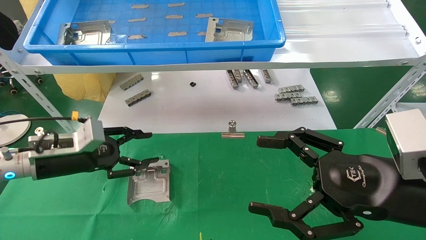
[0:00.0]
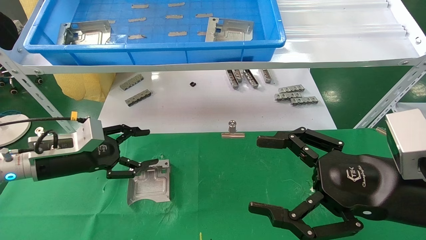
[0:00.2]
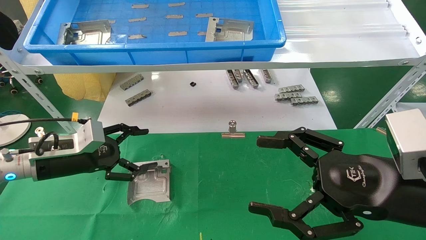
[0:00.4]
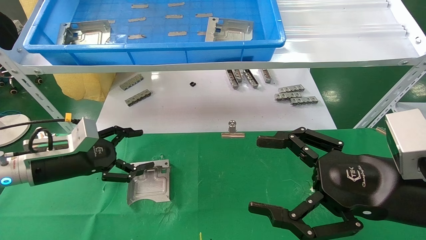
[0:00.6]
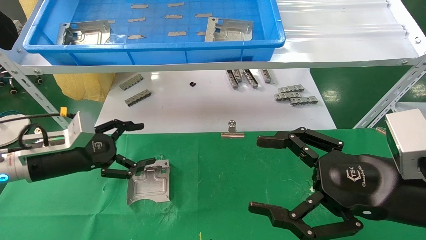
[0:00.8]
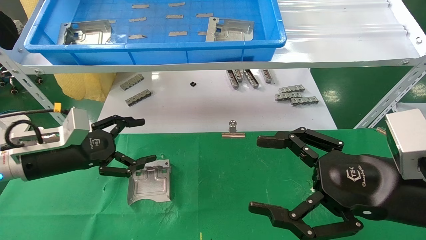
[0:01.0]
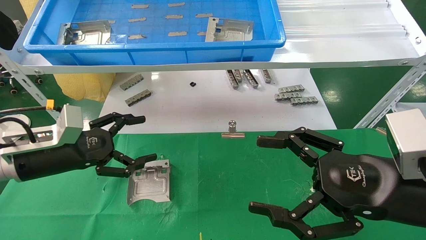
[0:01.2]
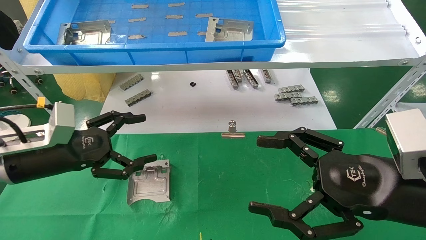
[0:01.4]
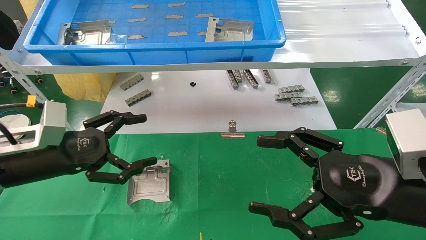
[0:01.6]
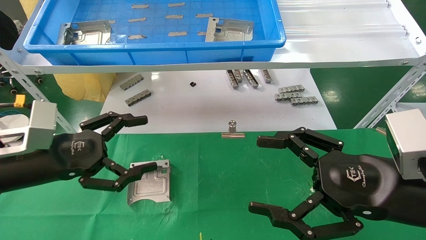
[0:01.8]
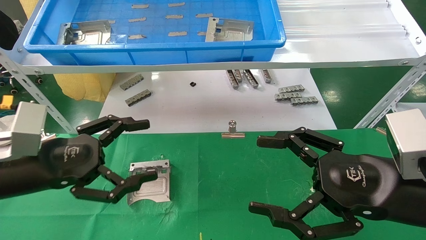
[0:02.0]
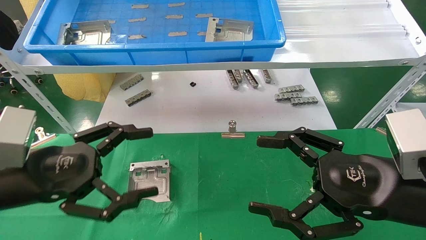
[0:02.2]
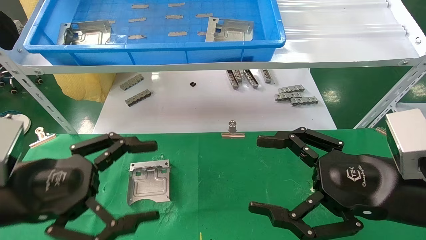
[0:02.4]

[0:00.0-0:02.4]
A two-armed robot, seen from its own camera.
Task of the whole recording: use the mechanical arm to pick up the parts and place them on the table.
0:00.0 to 0:01.2: The left gripper opens.
0:01.2 to 0:02.4: The left gripper heads backward, covering approximately 10 cm.

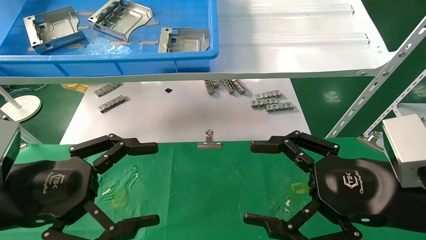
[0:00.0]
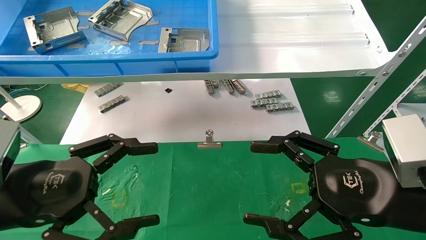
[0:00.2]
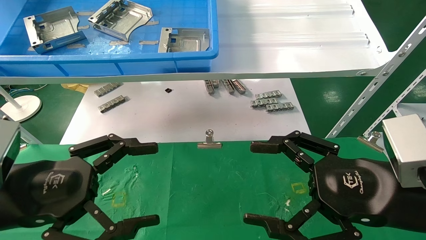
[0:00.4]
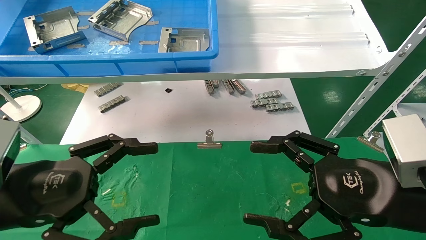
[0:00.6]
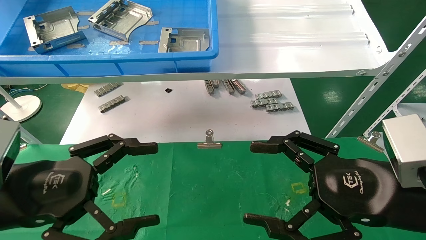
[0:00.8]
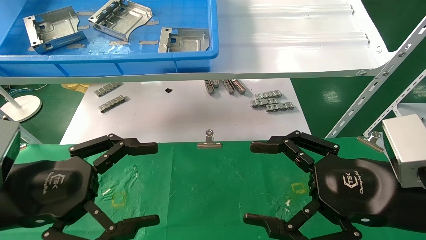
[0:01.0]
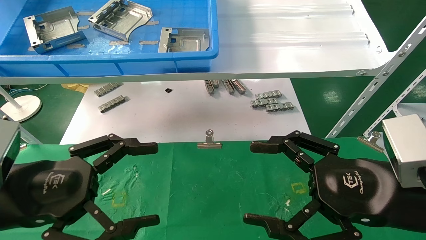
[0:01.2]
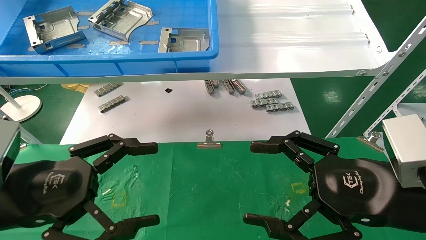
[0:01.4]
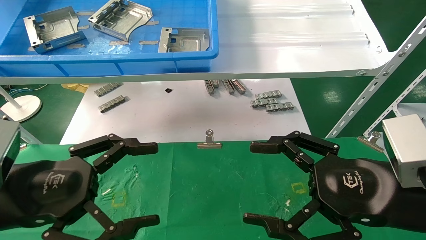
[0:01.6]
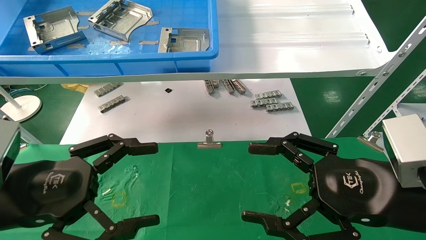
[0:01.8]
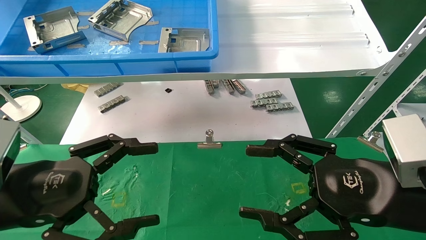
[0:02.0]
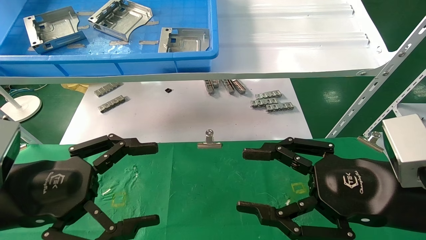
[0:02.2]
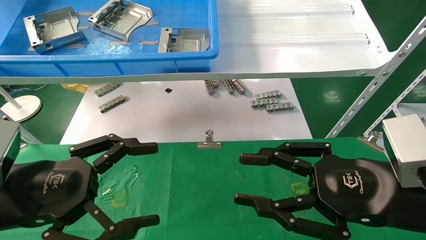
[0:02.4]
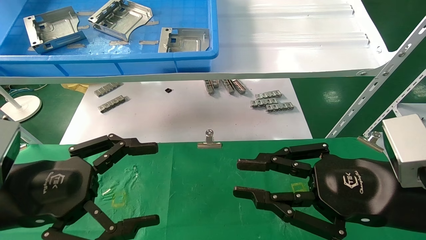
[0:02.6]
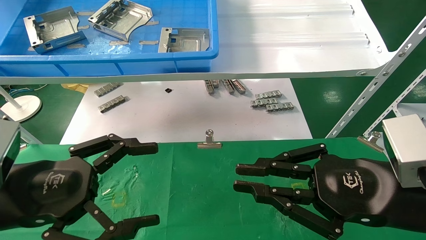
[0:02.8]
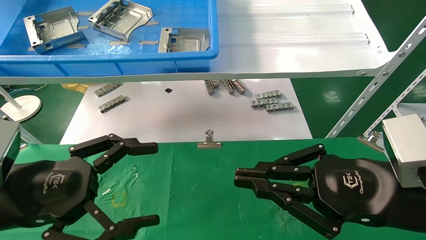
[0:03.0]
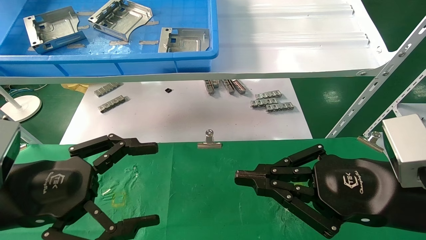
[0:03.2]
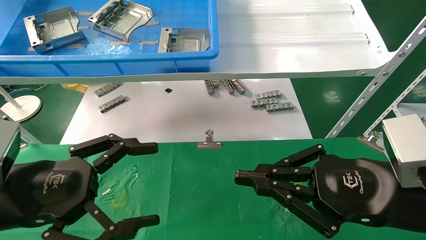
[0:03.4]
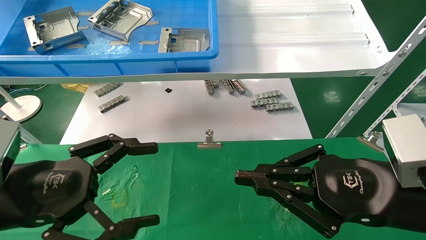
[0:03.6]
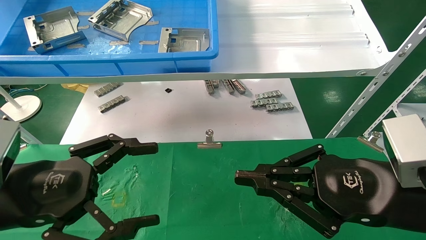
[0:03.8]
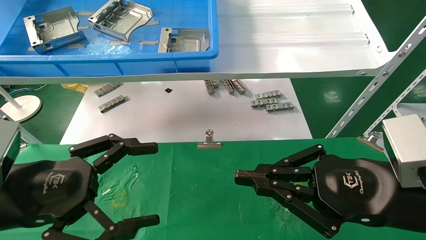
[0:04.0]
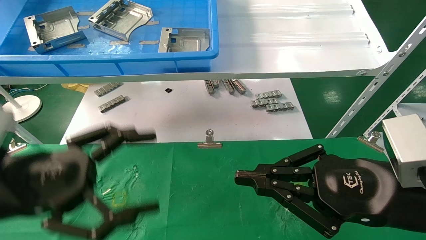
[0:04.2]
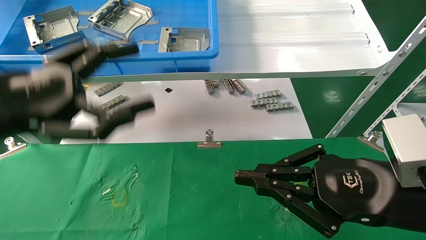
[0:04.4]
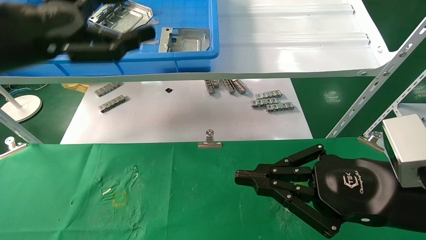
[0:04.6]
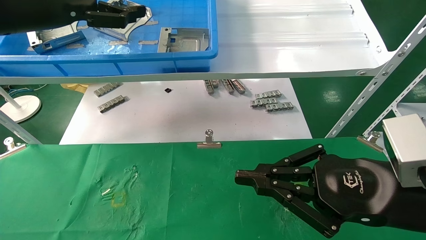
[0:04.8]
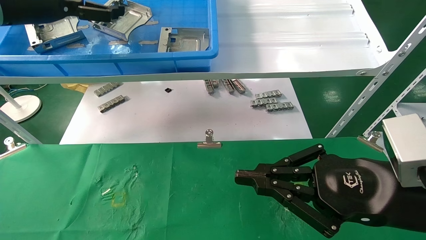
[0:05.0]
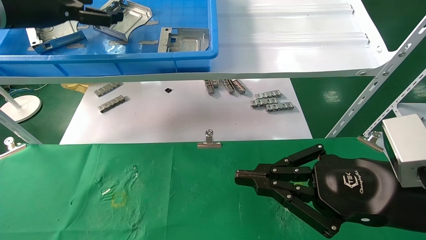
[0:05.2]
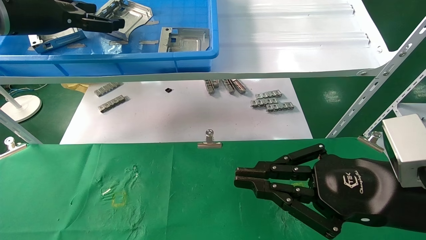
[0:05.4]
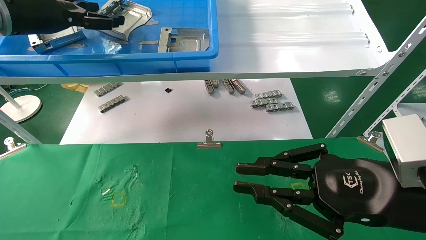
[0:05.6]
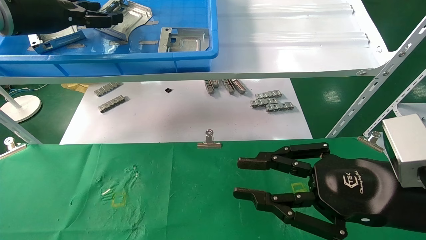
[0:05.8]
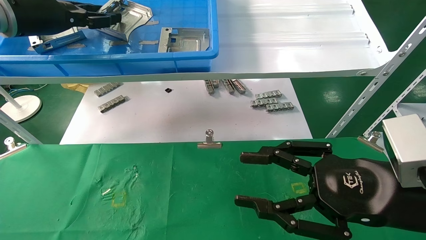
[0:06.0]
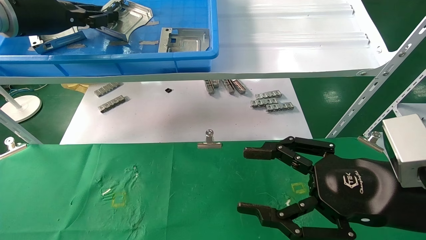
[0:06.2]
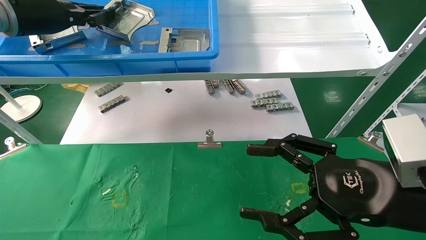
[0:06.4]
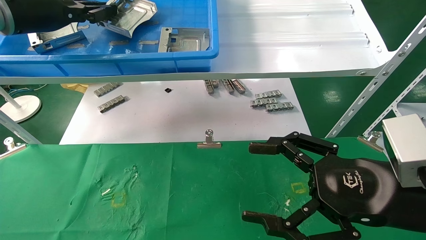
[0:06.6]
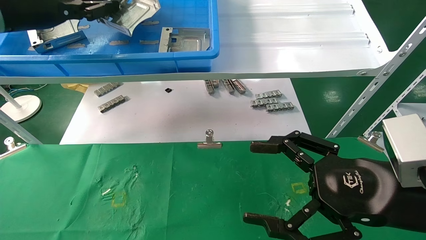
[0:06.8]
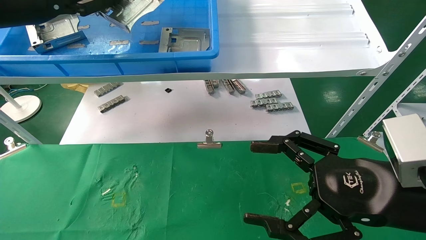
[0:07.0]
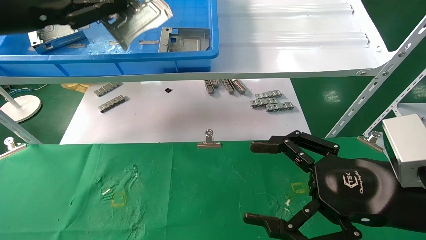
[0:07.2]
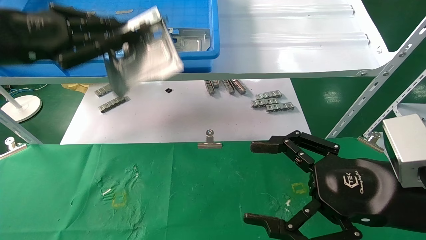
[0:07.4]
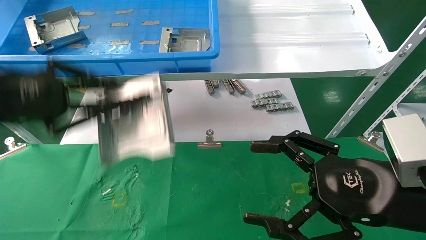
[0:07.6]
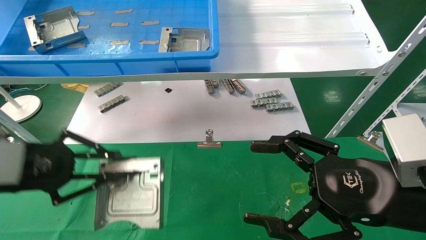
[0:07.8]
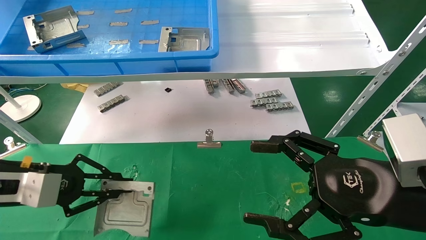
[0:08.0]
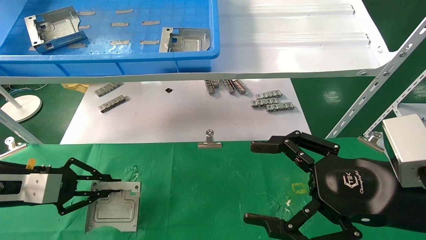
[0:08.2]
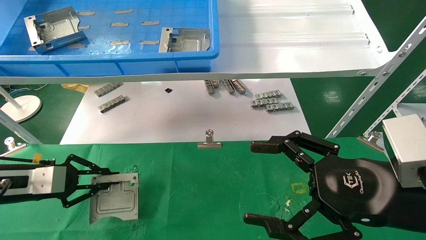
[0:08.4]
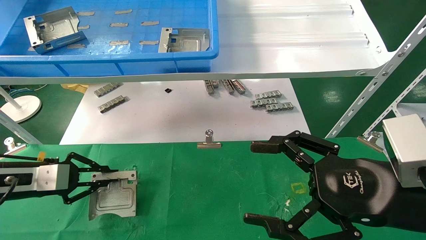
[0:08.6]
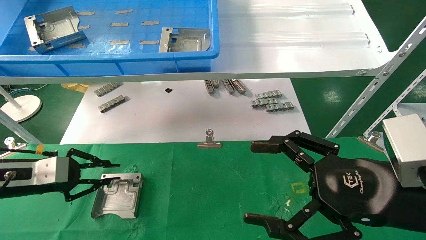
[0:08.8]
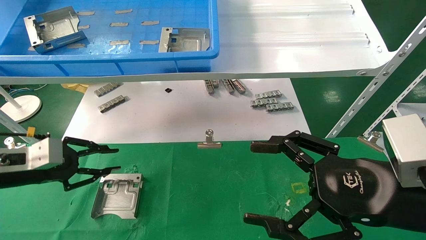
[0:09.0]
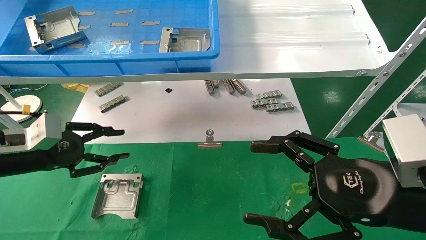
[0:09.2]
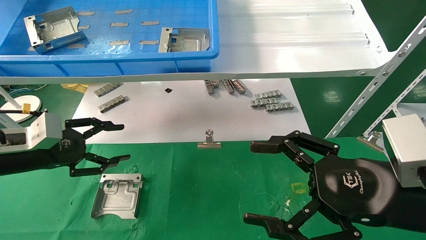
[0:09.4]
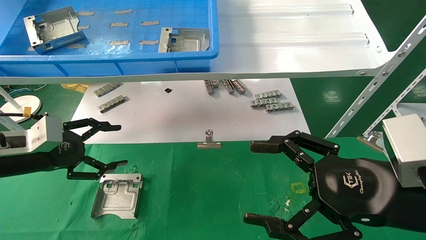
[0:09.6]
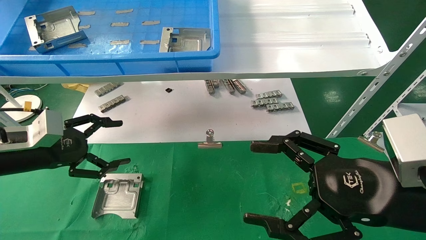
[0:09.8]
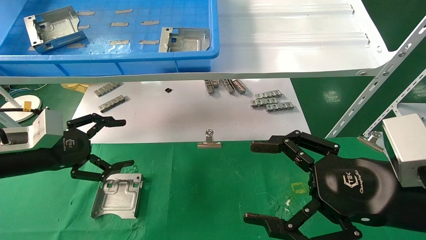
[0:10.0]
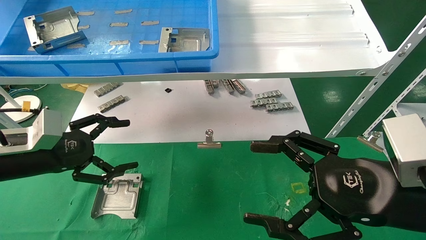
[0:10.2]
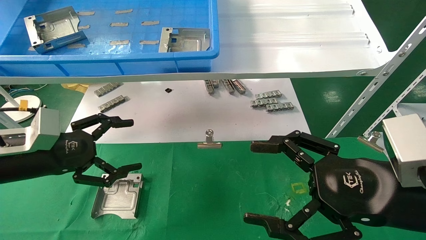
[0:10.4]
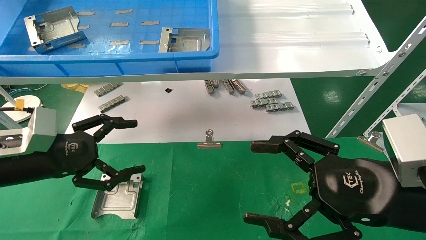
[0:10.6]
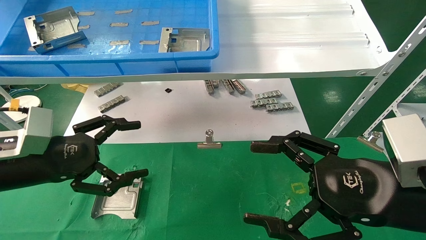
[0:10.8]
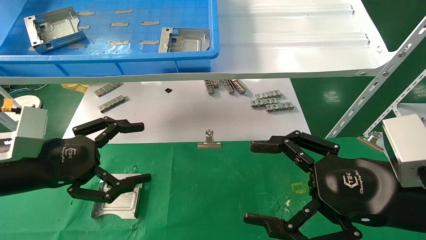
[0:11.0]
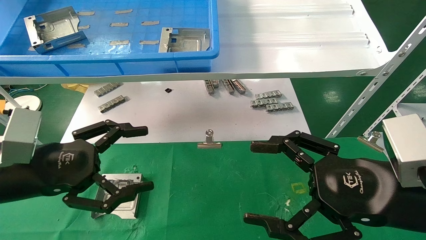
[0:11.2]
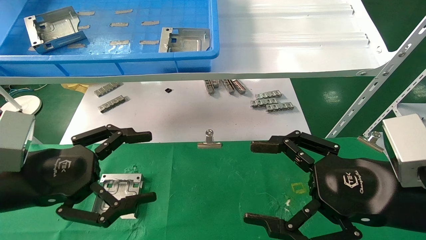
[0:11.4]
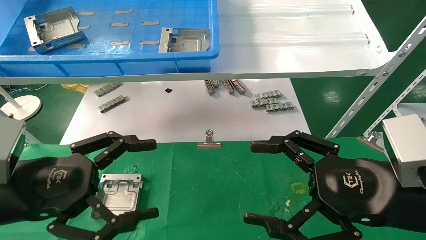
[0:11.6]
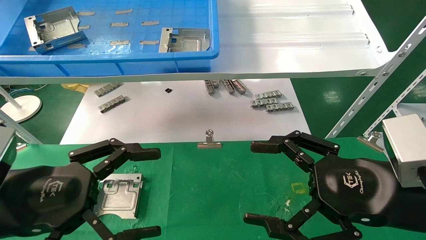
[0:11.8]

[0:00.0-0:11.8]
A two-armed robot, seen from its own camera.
Task of the whole recording: use the mechanical arm to pick up the parts and place them on the table.
Step, 0:04.4 to 0:06.4: Pick up the hard drive bracket from the feeding area.
Step, 0:06.6 to 0:08.8: Place the hard drive bracket into the box.
0:00.0 to 0:01.4: The two grippers keep their place.
0:01.4 to 0:03.0: The right gripper closes.
0:03.0 to 0:04.4: The left gripper shifts about 10 cm upward.
0:04.4 to 0:06.0: The left gripper travels forward and upward by approximately 20 cm, and closes up. The right gripper opens.
0:06.0 to 0:07.4: The left gripper moves backward and downward, roughly 15 cm, and closes its fingers. The right gripper opens.
0:07.4 to 0:08.8: The left gripper travels downward by about 20 cm.
0:08.8 to 0:10.4: The left gripper moves to the right, approximately 5 cm, and opens up.
0:10.4 to 0:11.8: The left gripper shifts roughly 10 cm backward and to the right.

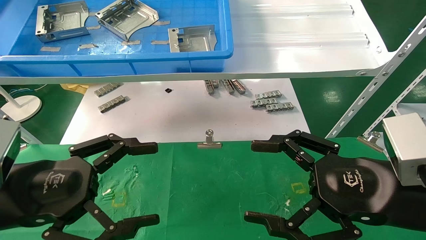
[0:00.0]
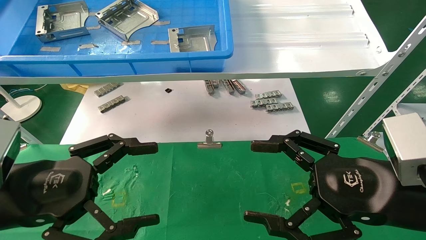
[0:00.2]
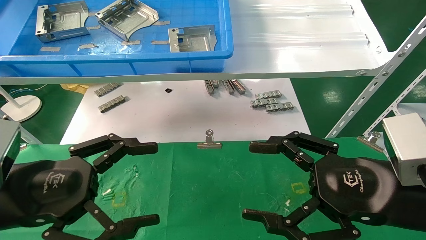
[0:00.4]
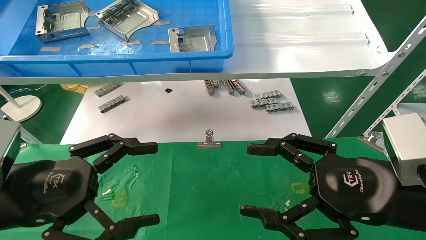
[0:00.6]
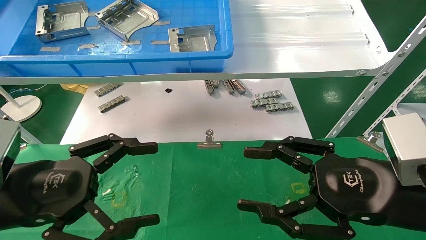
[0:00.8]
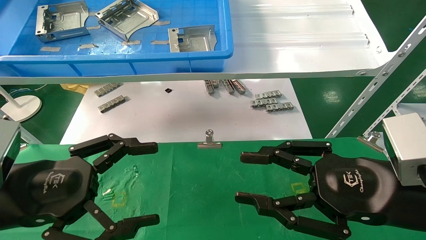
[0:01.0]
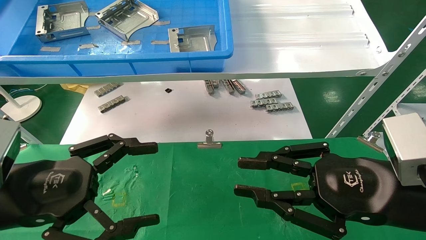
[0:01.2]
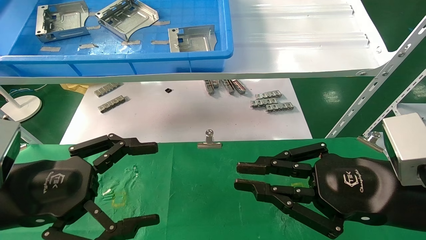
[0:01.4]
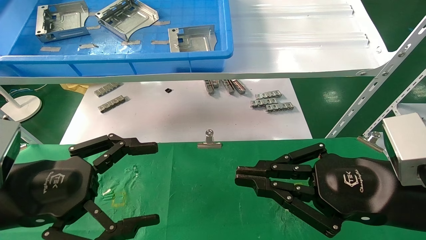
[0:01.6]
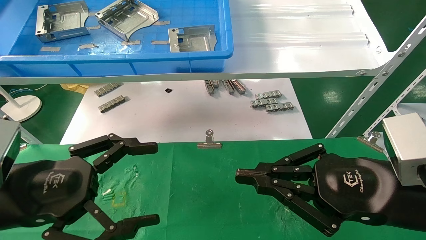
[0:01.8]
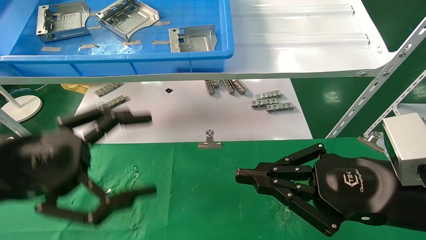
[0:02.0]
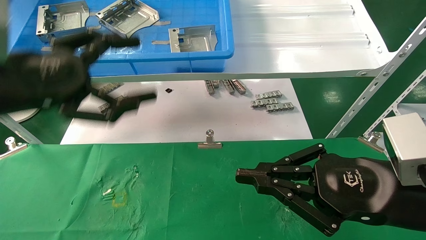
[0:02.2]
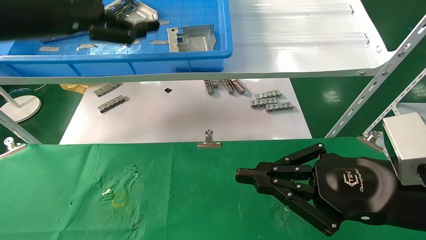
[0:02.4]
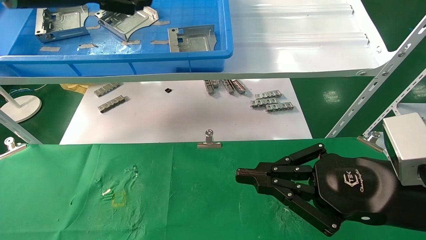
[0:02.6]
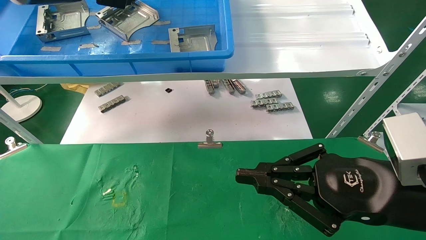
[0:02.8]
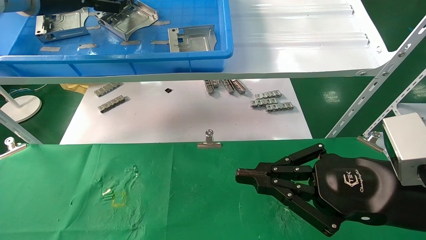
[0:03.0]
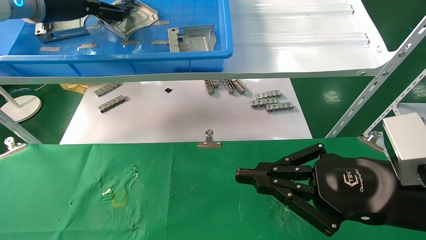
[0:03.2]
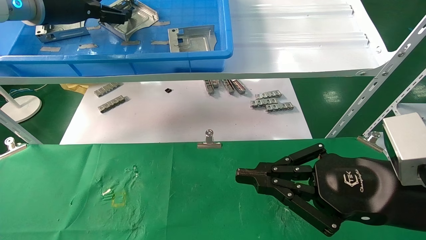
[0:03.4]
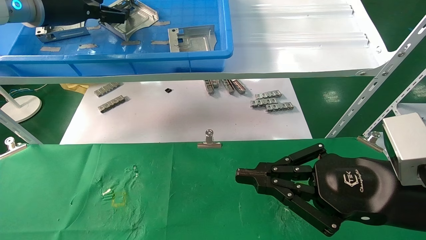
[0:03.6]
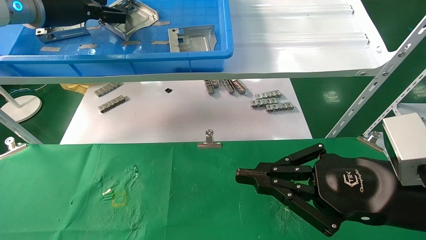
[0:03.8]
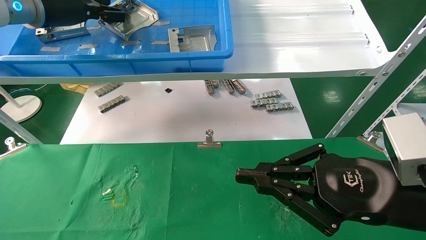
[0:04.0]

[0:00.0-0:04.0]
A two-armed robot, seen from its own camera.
Task of the whole recording: use the mechanical arm to pick up the parts and place them on the table.
0:00.0 to 0:01.4: The right gripper closes its fingers.
0:01.4 to 0:02.6: The left gripper goes some 30 cm upward and forward.
0:02.6 to 0:04.0: The left gripper heads forward, covering approximately 5 cm, and closes its fingers.
